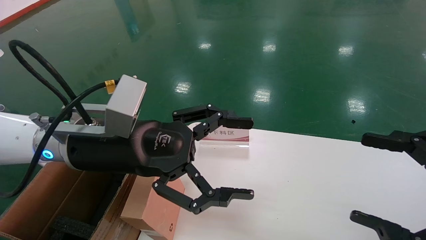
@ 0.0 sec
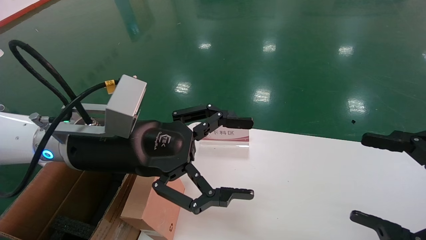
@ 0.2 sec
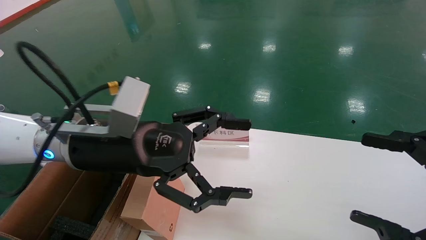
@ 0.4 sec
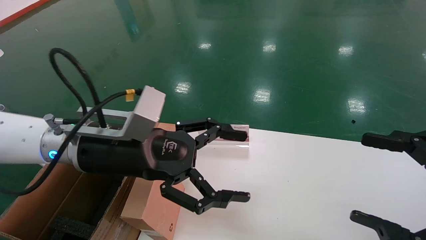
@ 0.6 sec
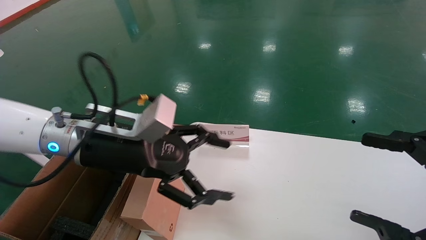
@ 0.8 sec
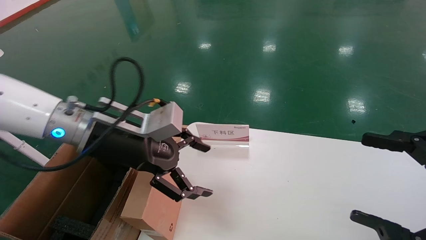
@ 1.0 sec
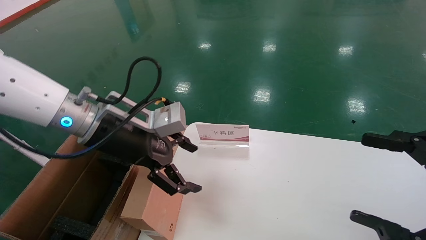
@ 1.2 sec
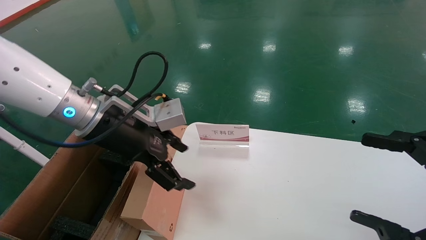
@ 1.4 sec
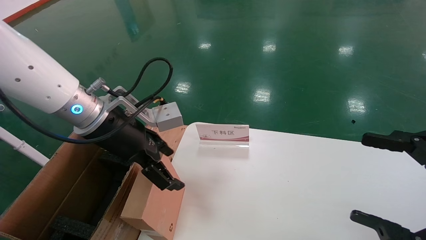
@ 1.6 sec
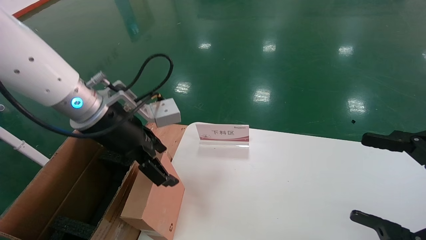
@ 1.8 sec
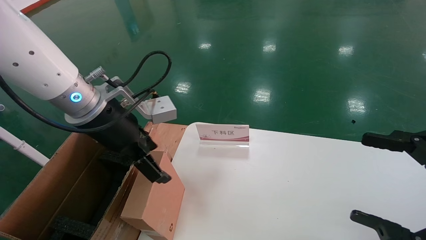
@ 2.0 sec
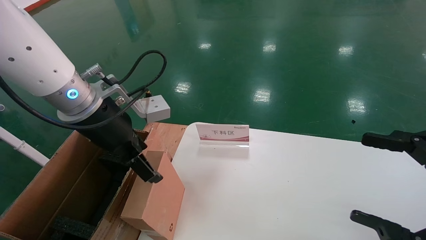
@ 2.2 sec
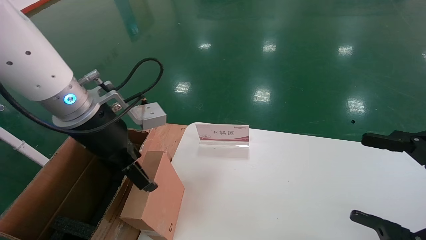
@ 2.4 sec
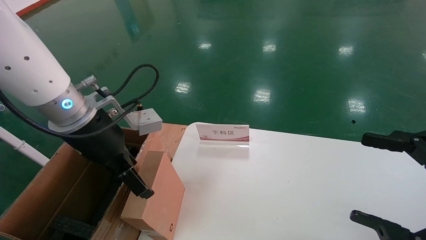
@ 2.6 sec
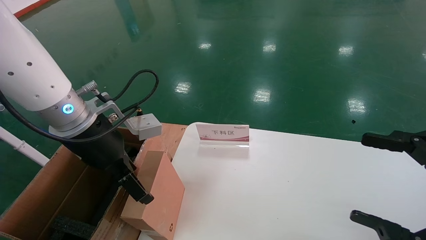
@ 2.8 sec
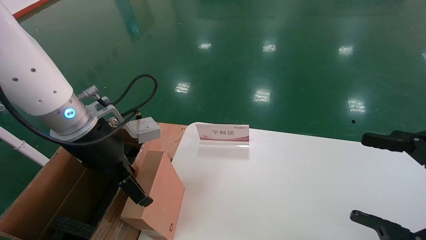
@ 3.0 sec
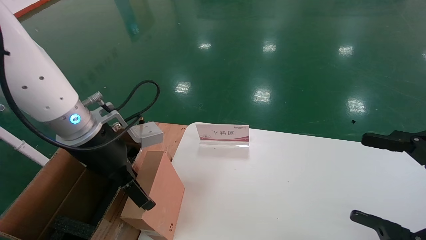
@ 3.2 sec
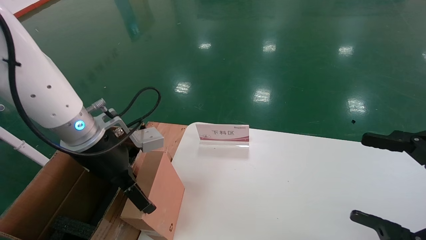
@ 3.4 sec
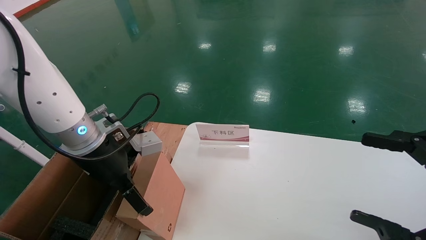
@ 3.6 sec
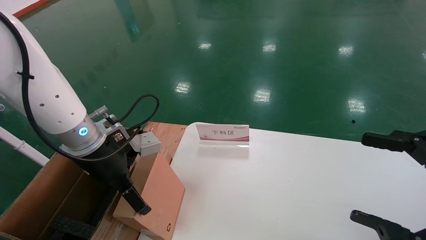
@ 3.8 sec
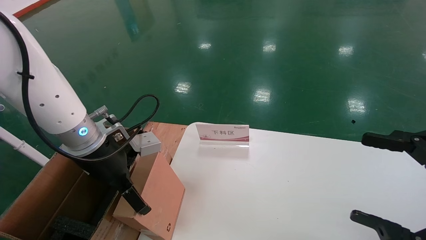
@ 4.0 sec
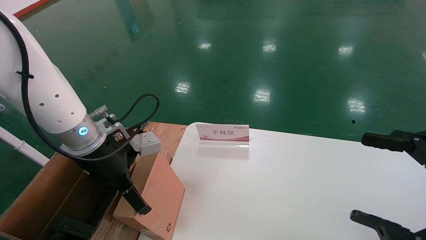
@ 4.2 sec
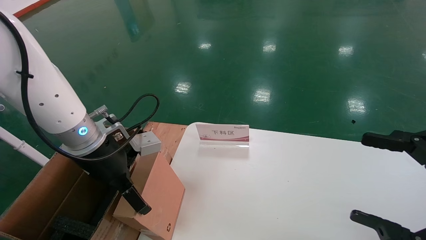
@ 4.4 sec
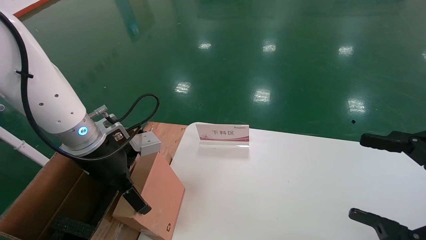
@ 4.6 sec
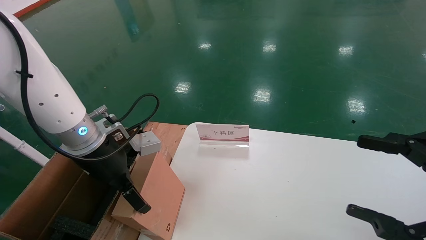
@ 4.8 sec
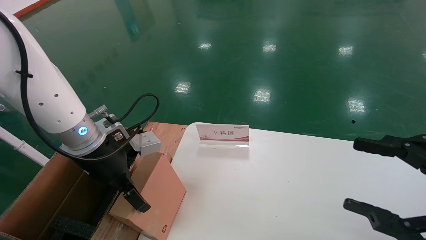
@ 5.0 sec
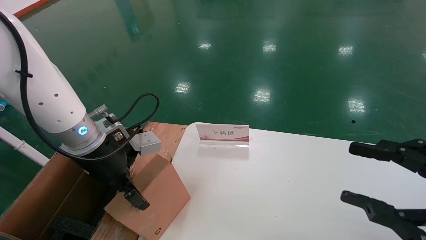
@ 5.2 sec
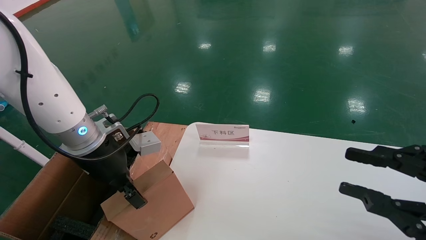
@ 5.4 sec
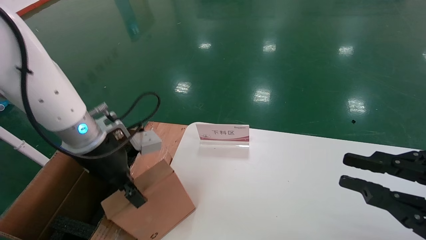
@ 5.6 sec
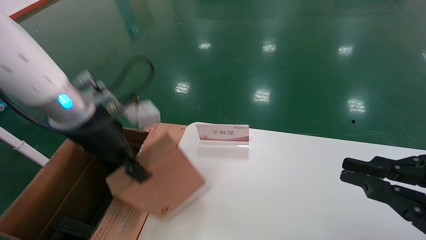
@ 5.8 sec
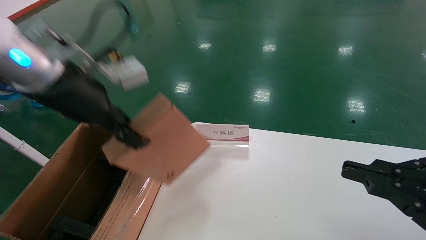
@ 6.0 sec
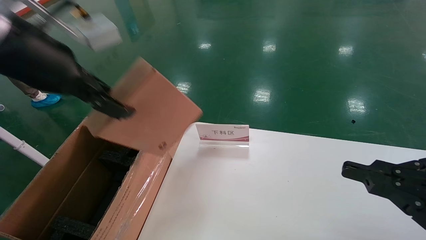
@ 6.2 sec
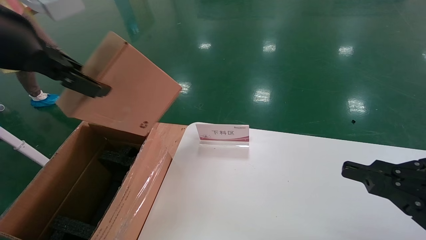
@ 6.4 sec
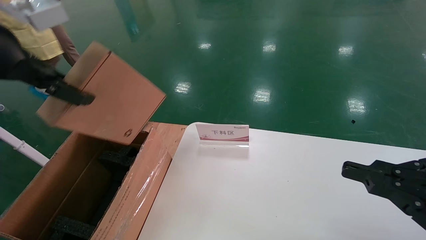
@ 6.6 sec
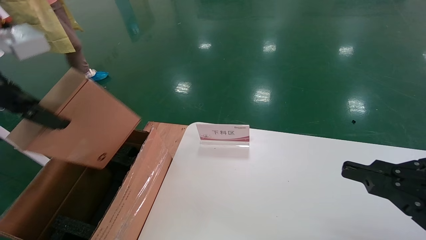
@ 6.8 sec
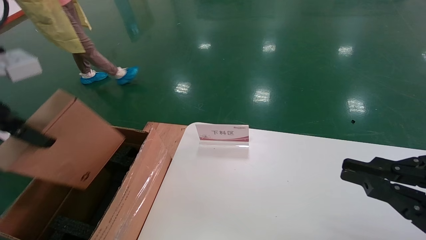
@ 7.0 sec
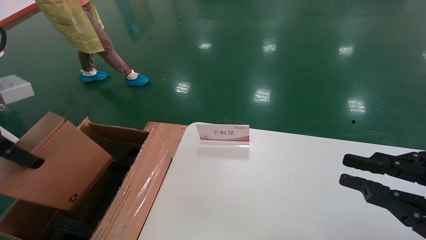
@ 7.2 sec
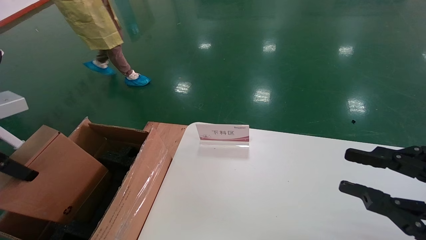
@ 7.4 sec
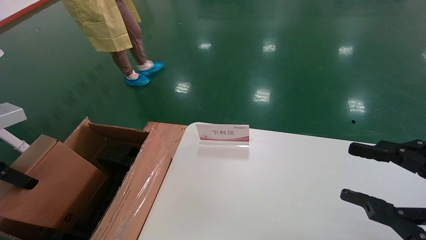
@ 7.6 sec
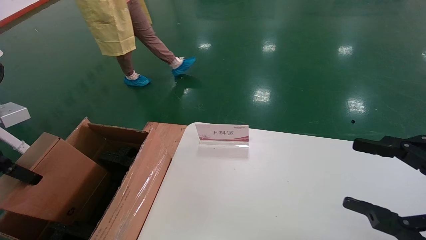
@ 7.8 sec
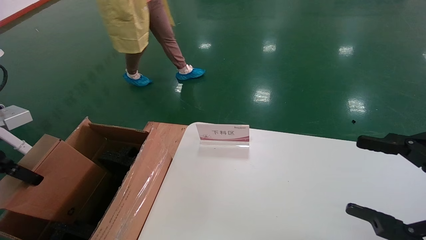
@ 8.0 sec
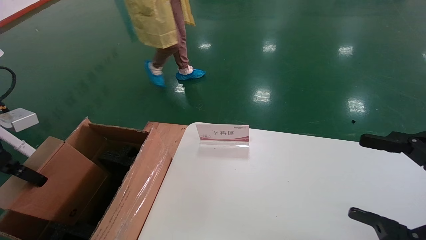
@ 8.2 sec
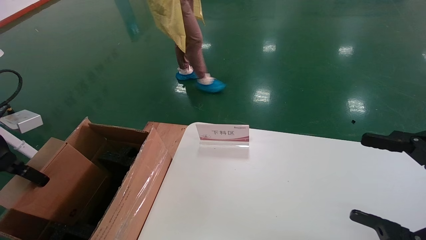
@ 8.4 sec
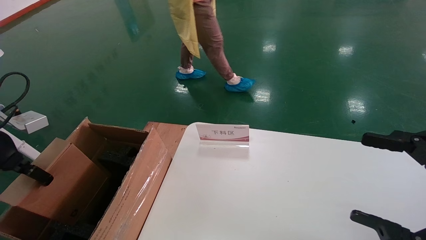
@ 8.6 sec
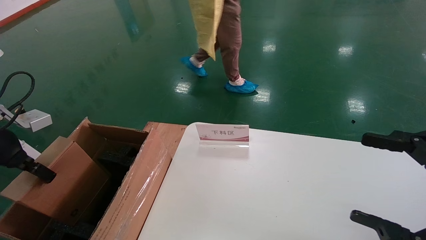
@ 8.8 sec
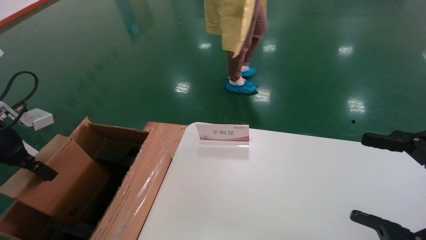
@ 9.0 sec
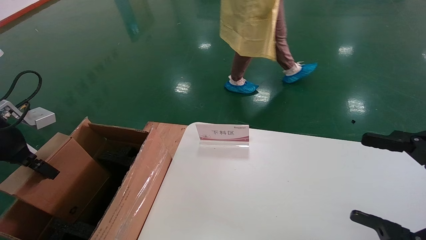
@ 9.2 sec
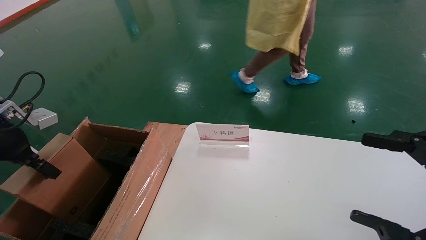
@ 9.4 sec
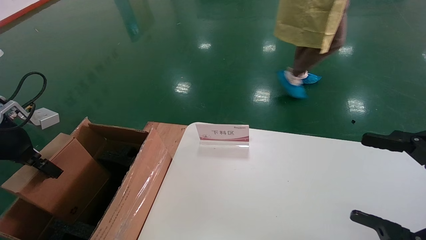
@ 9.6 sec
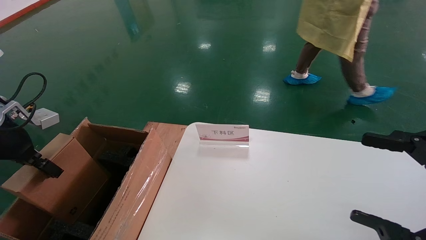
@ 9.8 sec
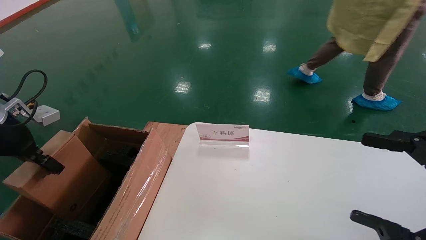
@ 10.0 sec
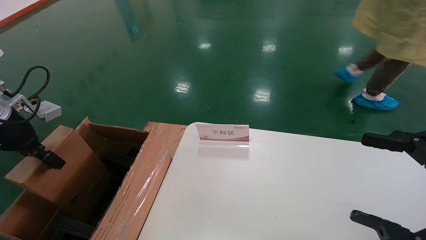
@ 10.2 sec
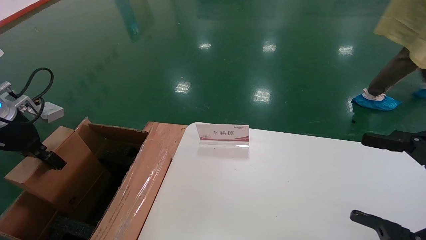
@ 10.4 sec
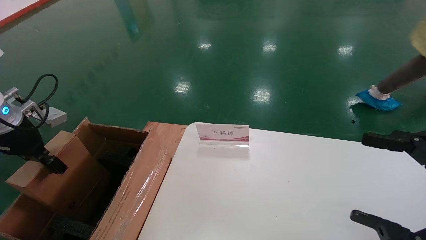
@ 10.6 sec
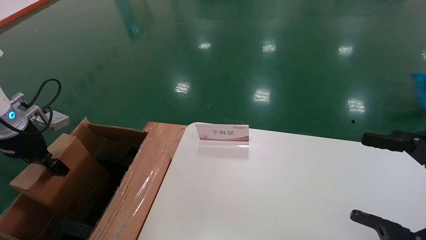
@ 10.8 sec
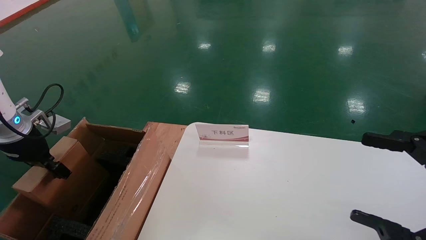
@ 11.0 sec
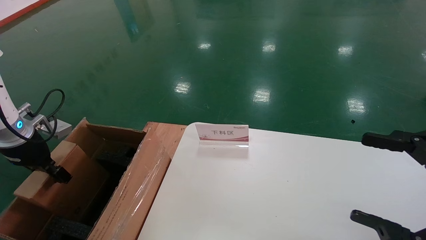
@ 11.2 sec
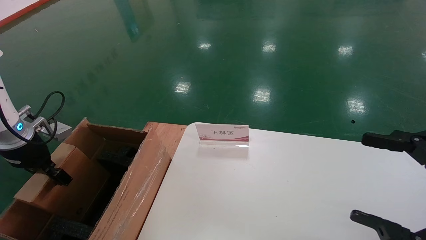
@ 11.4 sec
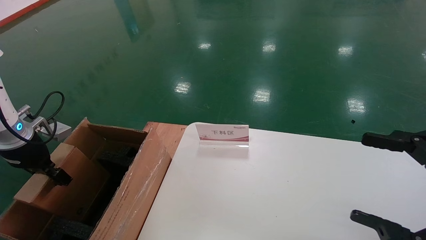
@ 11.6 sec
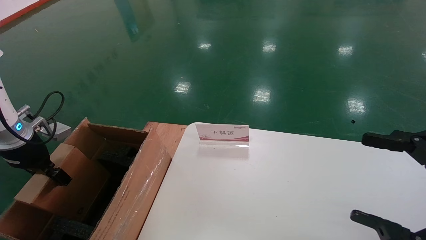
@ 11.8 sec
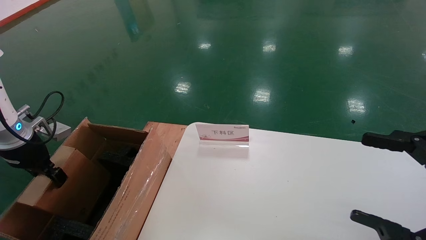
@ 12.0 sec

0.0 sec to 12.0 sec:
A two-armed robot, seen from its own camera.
Task of the whole recording: pick up the small cardboard box and load it into the large cardboard box.
Step, 0.6 sec to 5.0 sec: Pick up the mouse and power cord box.
0.0 sec to 1.6 sec: The left gripper travels forward by about 5 cm.
3.0 sec to 4.4 sec: The grippers move only a little.
4.4 sec to 6.0 sec: The right gripper closes; the left gripper is displaced upward by approximately 15 cm, and closes.
6.0 sec to 7.6 sec: The left gripper shifts roughly 20 cm to the left and backward.
7.6 sec to 9.0 sec: The right gripper opens up; the left gripper moves forward, approximately 5 cm.
9.0 sec to 10.4 sec: There are only small adjustments of the grippers.
10.4 sec to 12.0 sec: The left gripper travels downward by roughly 5 cm.

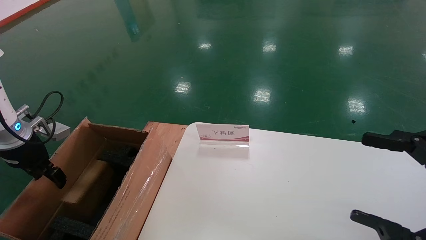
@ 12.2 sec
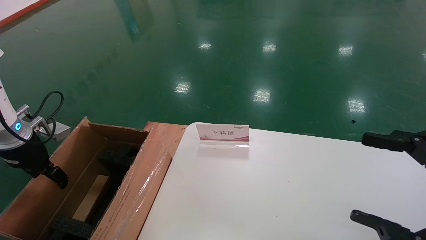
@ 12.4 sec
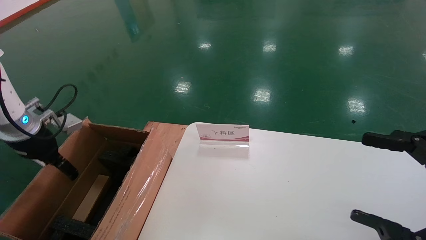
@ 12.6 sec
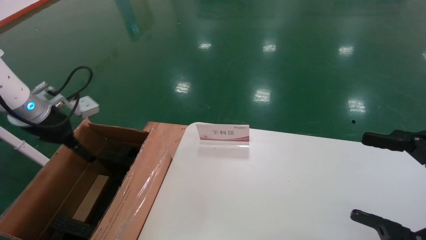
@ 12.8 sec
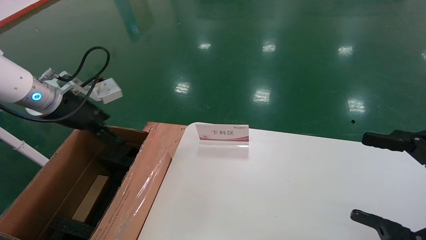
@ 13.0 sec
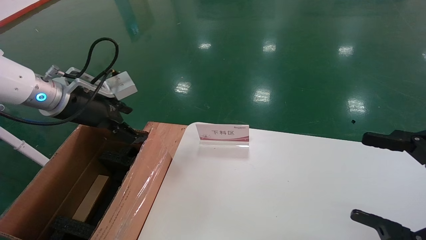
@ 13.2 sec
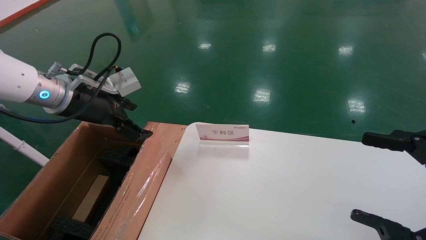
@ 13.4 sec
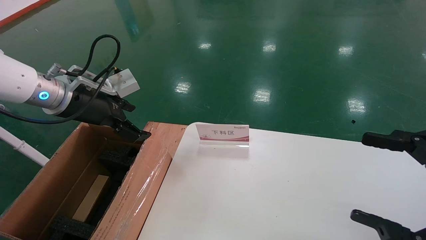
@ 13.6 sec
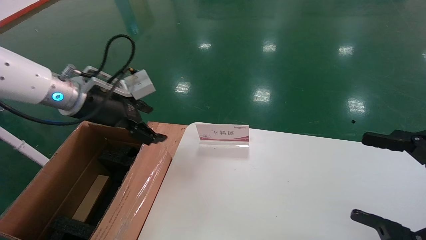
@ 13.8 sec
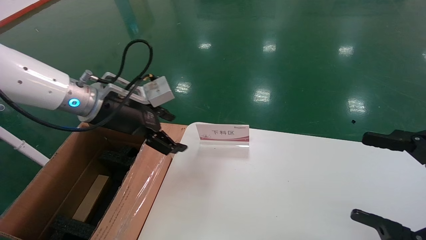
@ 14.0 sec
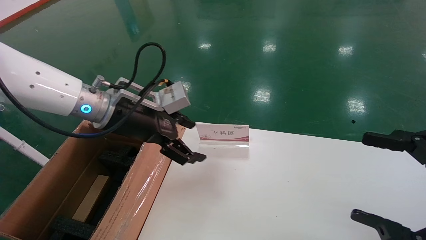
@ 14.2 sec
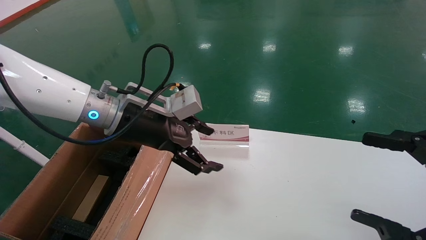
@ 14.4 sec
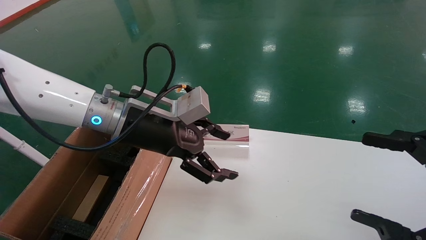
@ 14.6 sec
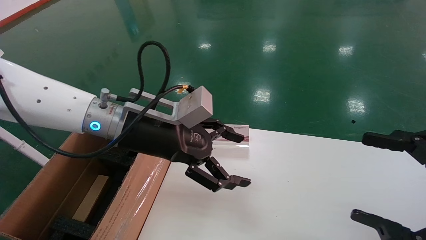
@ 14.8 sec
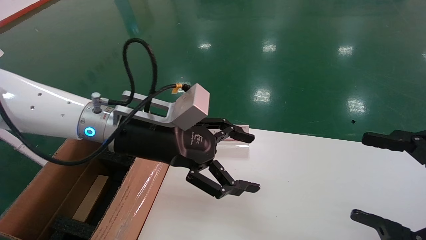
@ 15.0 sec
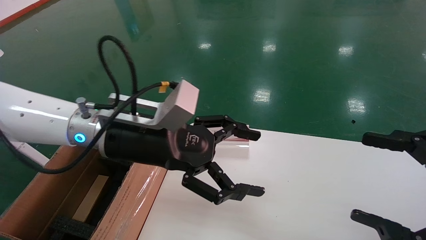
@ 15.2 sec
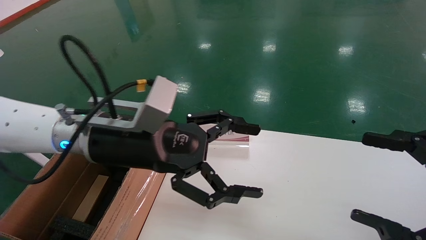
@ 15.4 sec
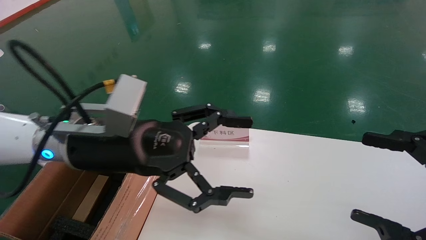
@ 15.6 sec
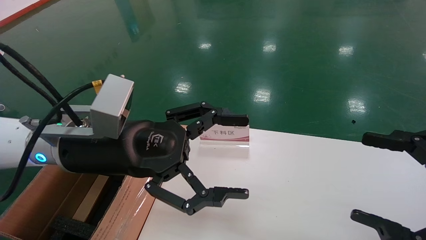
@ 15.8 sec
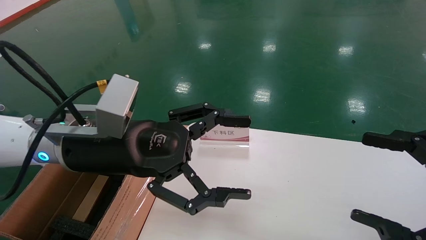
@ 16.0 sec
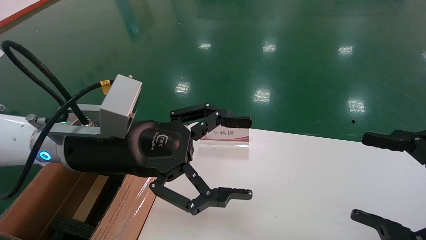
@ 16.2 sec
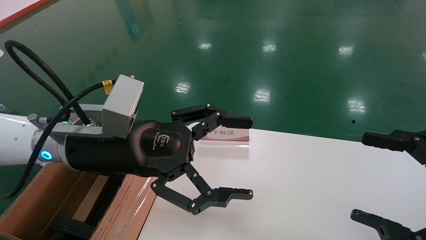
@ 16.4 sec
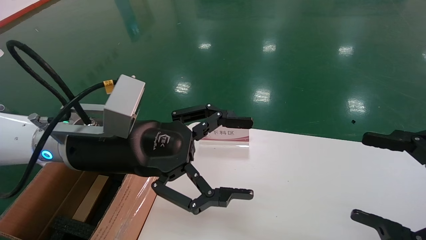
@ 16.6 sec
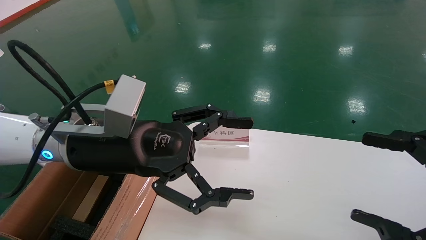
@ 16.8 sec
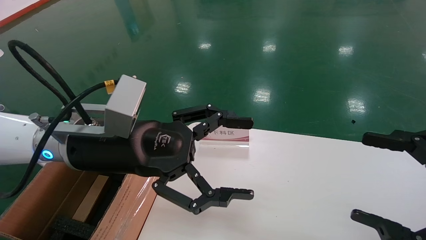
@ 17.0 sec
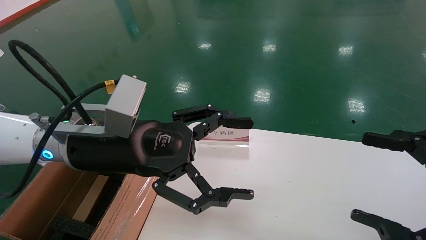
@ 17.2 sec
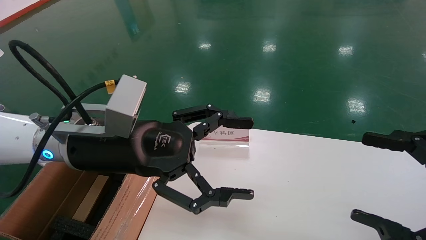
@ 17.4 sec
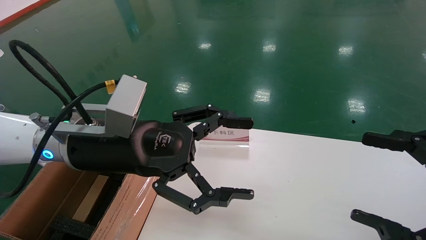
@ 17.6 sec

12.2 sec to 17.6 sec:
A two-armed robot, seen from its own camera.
Task of the whole recording: pick up the small cardboard box and load it into the large cardboard box.
12.2 sec to 13.6 sec: The left gripper travels to the right and upward by roughly 20 cm, and opens up.
13.6 sec to 15.0 sec: The left gripper travels to the right by roughly 15 cm.
15.0 sec to 16.2 sec: The left gripper moves about 5 cm.
16.2 sec to 17.6 sec: Both grippers stay put.
